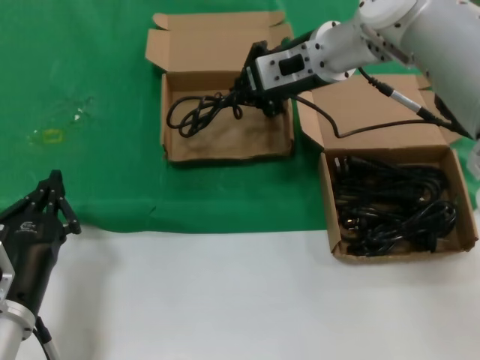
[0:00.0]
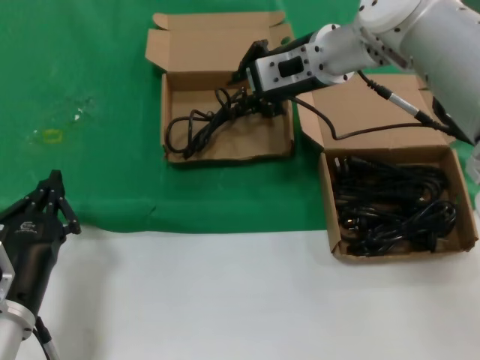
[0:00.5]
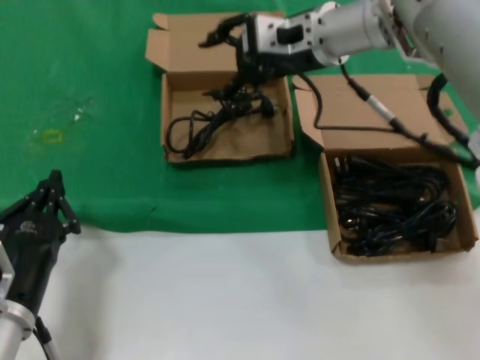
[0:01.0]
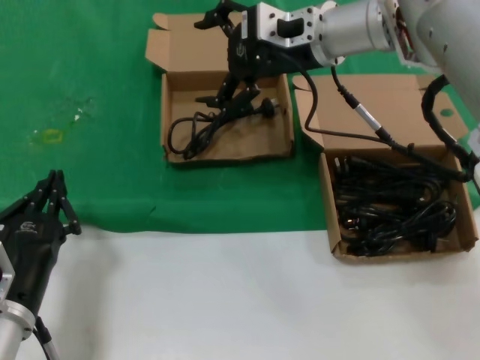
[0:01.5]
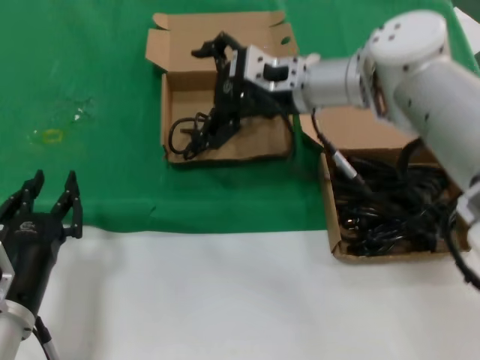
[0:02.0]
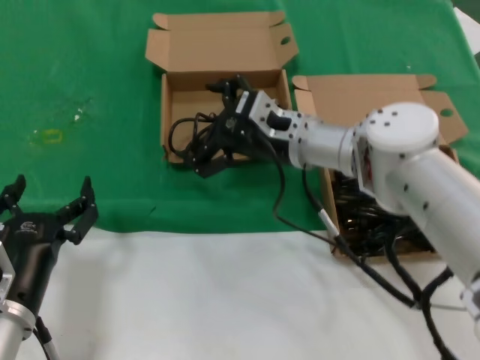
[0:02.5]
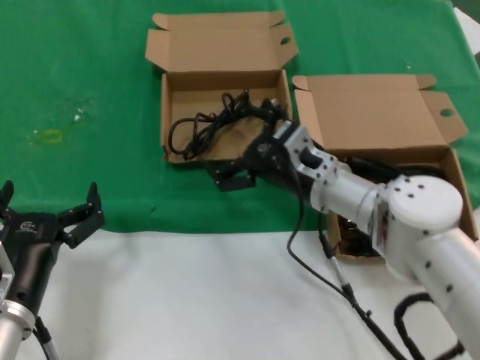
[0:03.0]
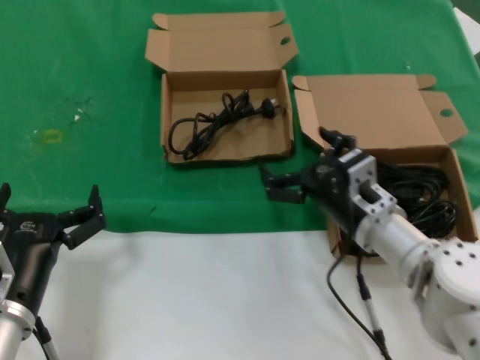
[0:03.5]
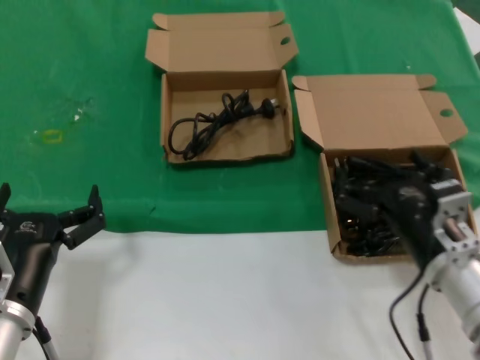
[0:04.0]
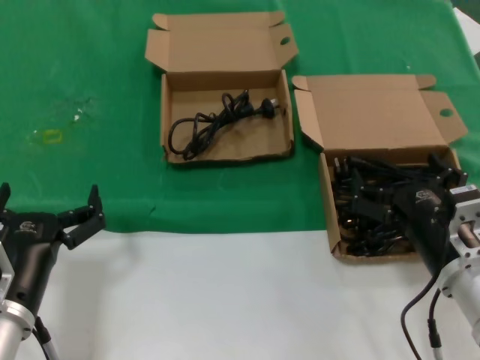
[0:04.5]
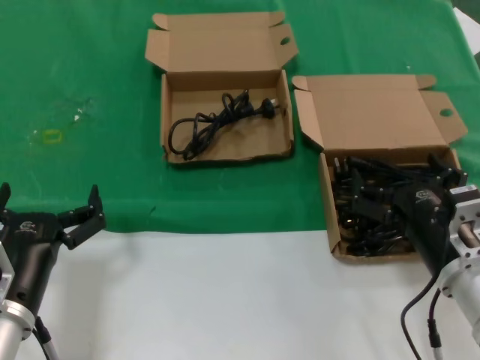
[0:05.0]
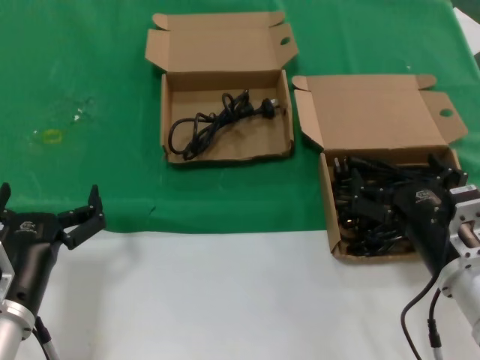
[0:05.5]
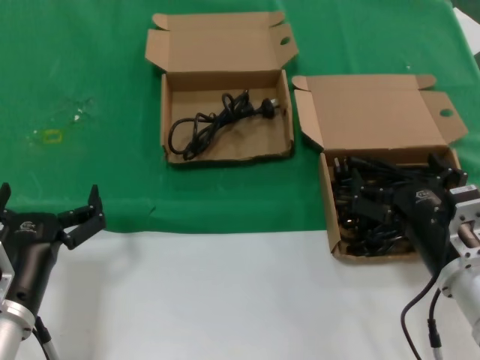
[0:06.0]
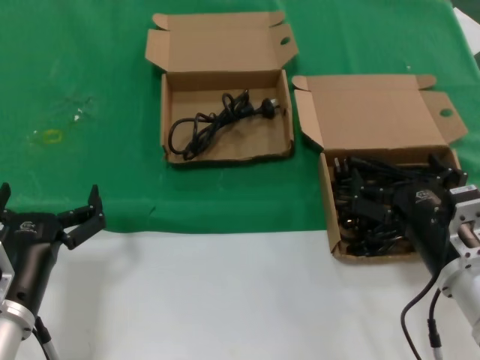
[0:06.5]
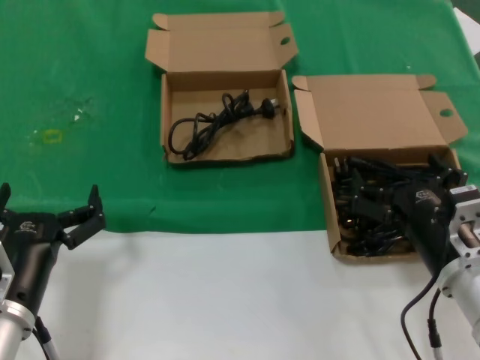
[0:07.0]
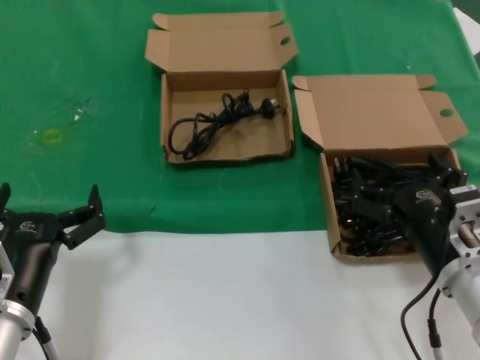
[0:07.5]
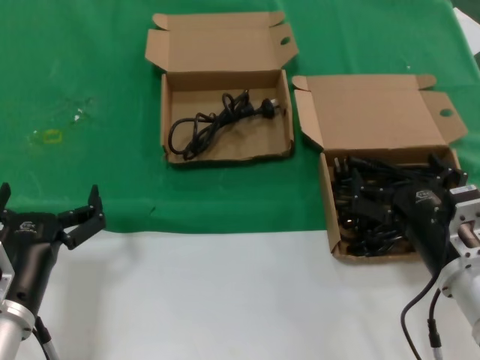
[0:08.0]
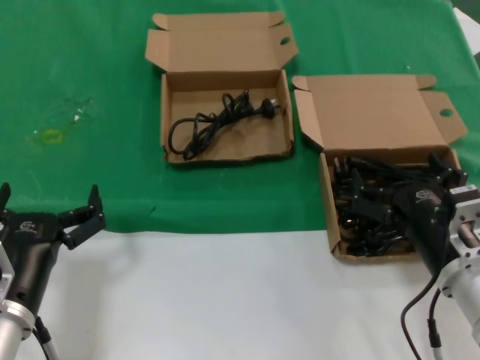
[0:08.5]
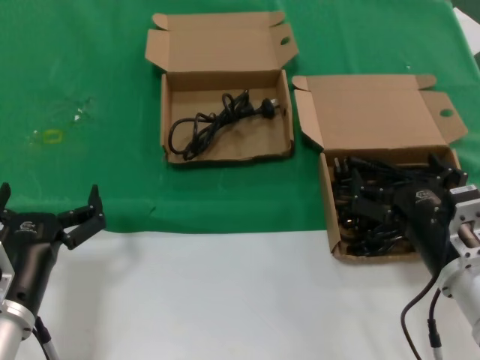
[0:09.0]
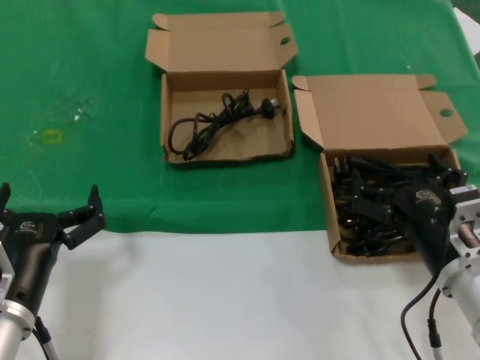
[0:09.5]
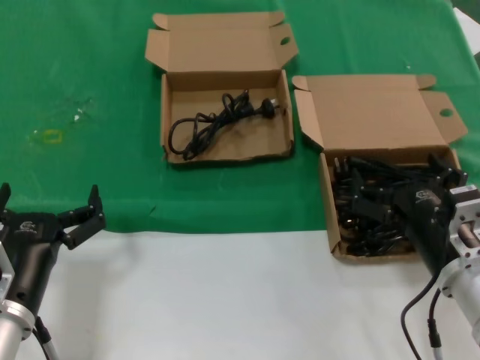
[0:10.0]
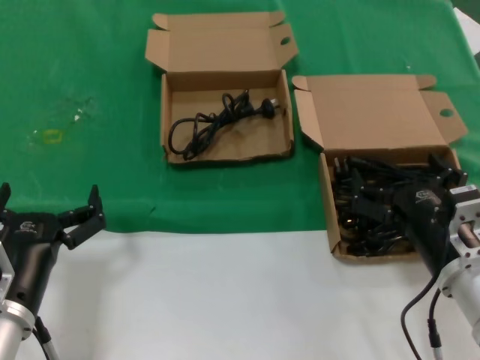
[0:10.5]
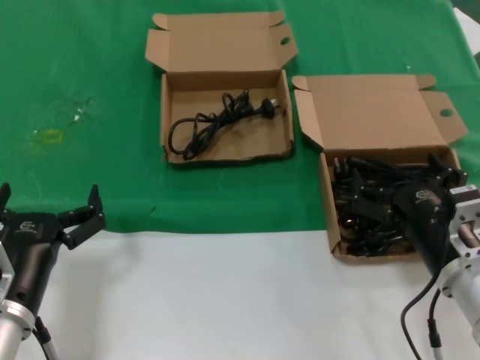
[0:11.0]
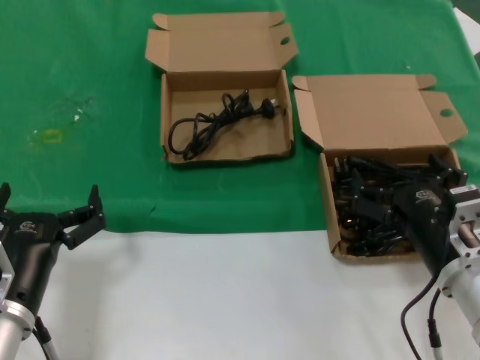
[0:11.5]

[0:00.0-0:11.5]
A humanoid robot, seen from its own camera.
Task of the whole recording: take the parts from the box containing them and put them into an empty box.
0:02.0 to 0:04.0: The right hand is displaced backward, downward and to the right by roughly 30 cm.
0:04.0 to 0:06.0: The hands move only a little.
0:06.0 to 0:11.5: Neither hand changes place.

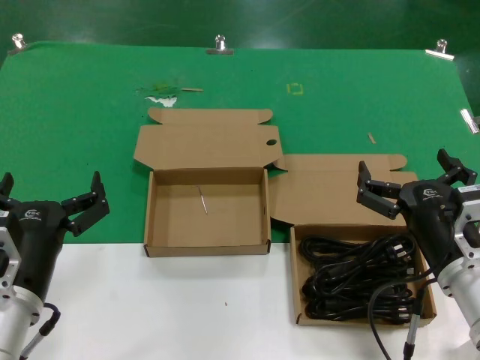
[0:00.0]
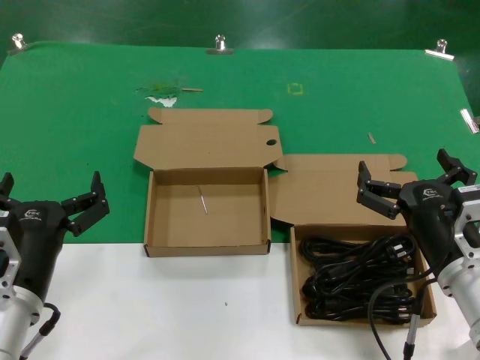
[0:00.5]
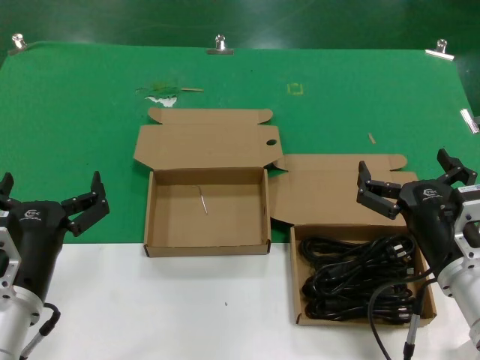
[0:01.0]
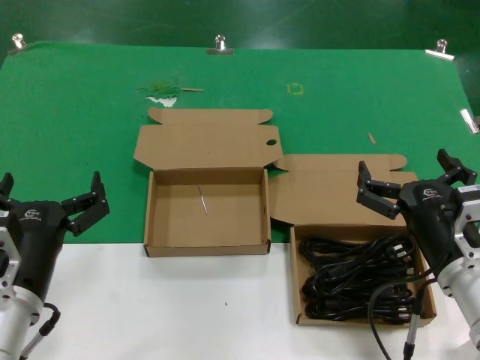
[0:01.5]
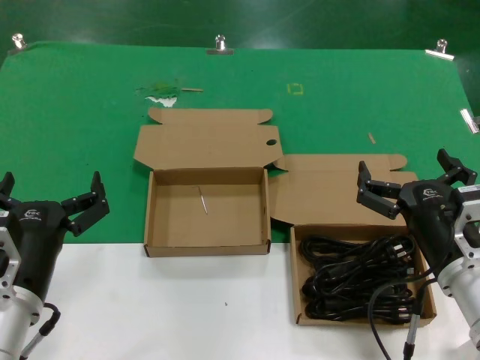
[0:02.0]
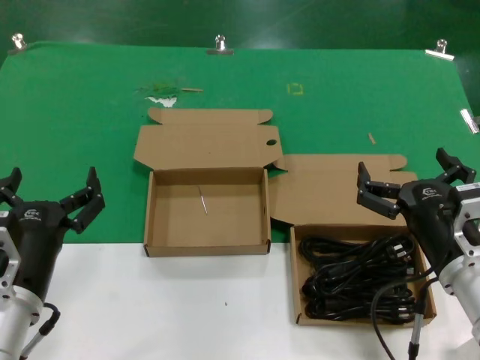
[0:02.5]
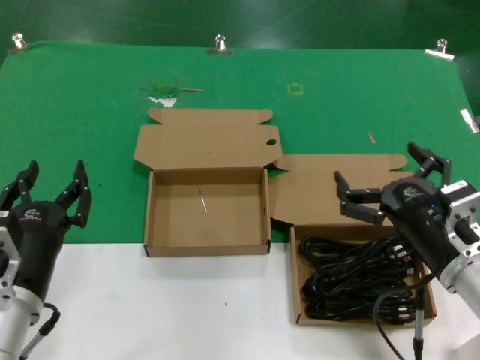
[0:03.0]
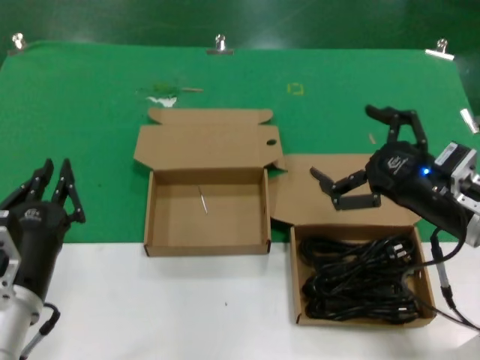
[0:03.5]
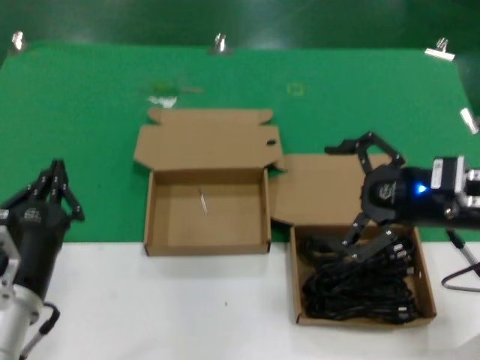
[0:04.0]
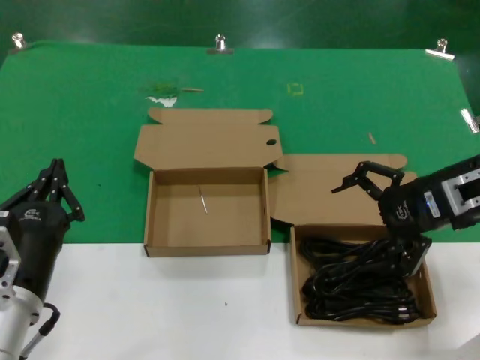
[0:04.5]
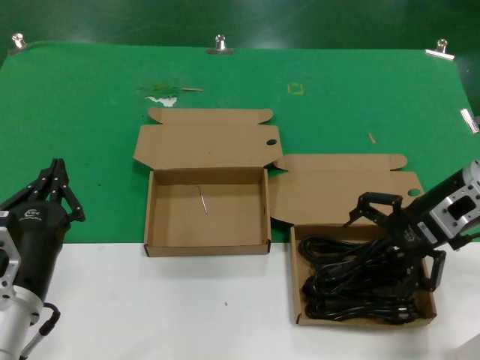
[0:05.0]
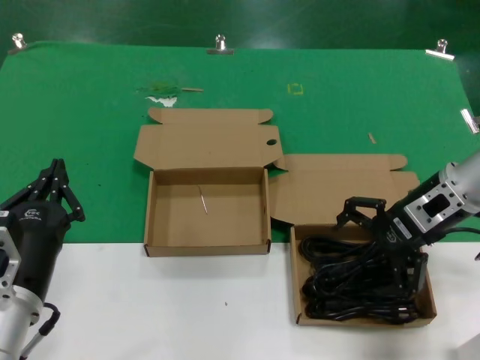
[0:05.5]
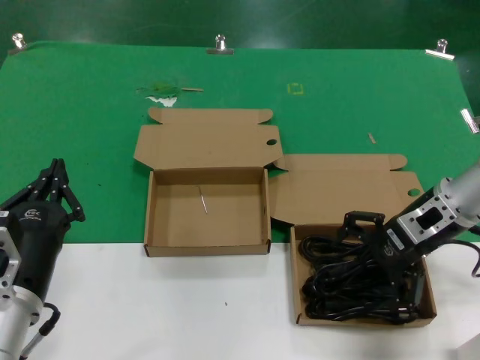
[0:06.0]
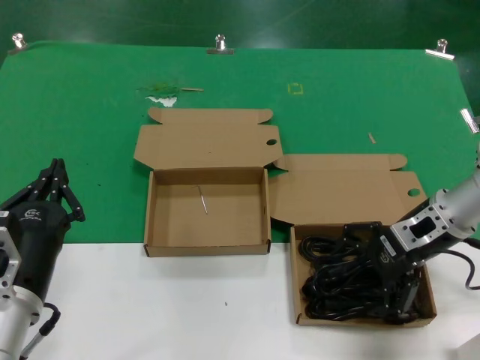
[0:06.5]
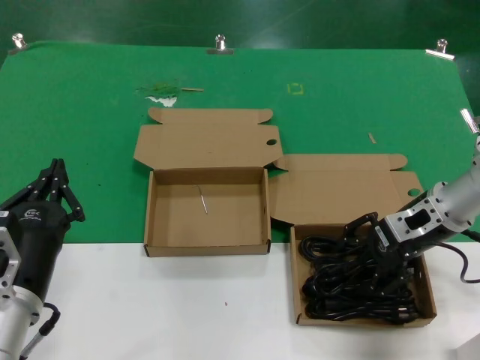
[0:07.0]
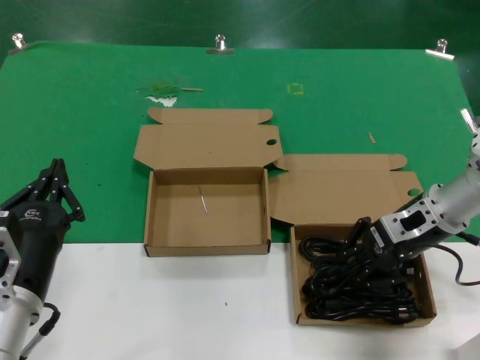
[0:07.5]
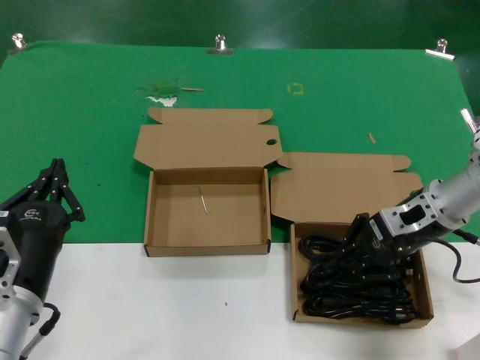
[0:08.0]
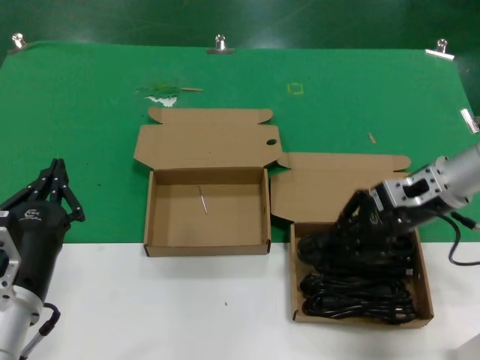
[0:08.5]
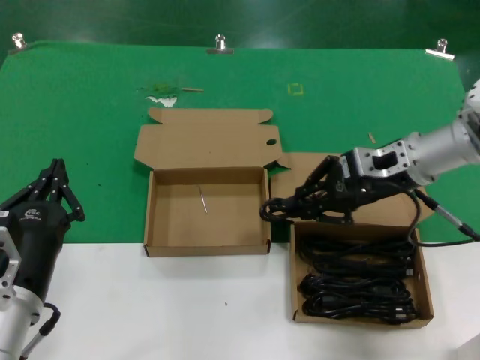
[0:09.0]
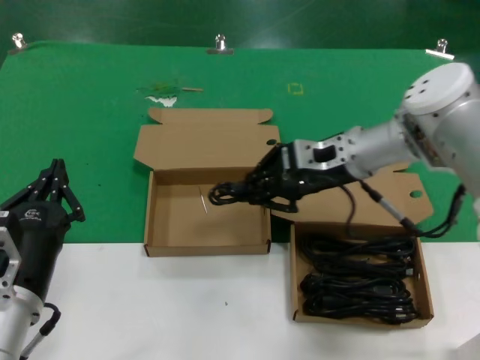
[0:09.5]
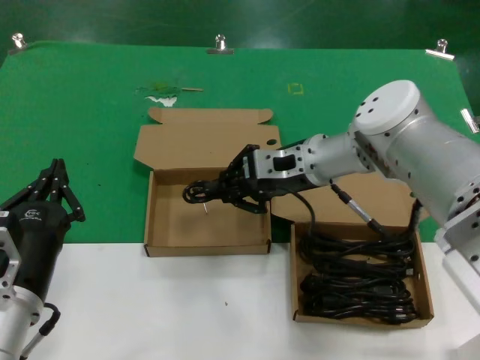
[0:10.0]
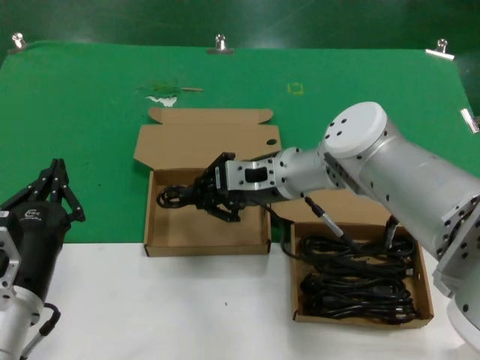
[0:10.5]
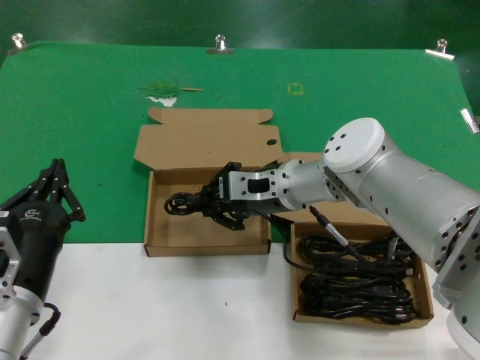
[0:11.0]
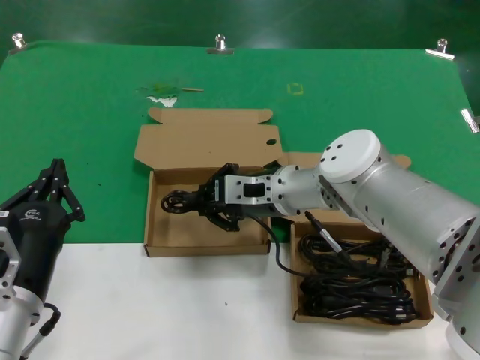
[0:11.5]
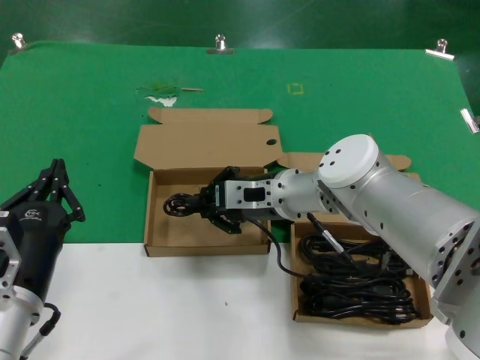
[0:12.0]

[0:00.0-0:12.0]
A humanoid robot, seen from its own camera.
Task of the whole recording: take the parts from the box containing them and put them into an empty box.
Step, 0:00.0 to 0:07.5: Grasp the data cable.
0:00.0 to 0:02.0: Neither hand changes place.
0:02.0 to 0:04.0: The right hand shifts about 15 cm upward, to the right and forward.
0:04.0 to 0:06.0: The right hand goes approximately 10 cm forward.
0:06.0 to 0:08.0: The hands make only small movements.
0:08.0 to 0:10.0: The right hand heads to the left, covering some 15 cm.
0:10.0 to 0:12.0: The right hand moves downward, approximately 5 cm.

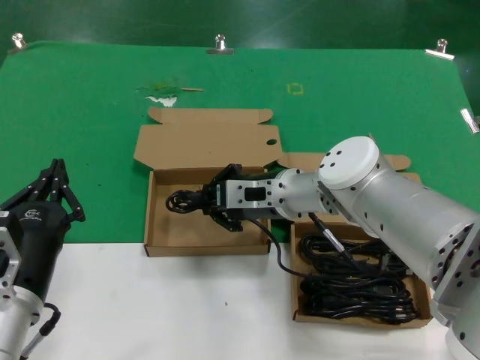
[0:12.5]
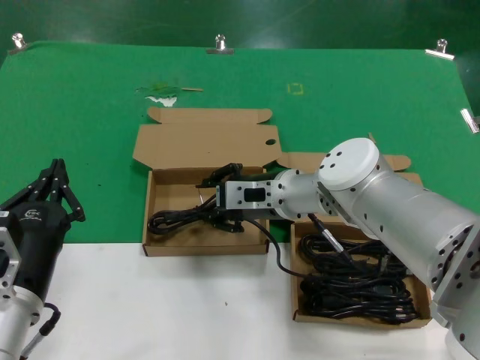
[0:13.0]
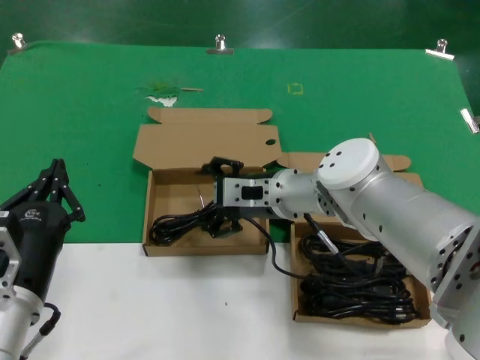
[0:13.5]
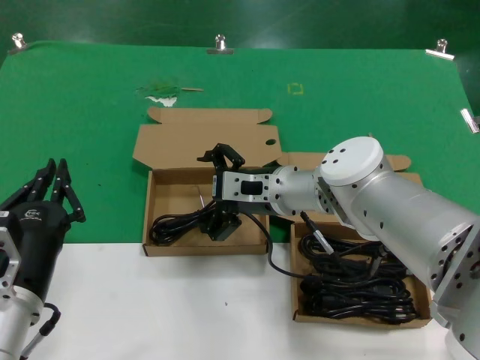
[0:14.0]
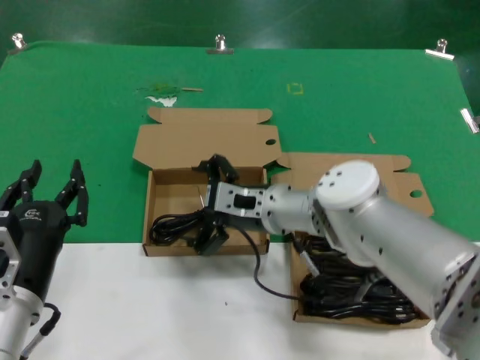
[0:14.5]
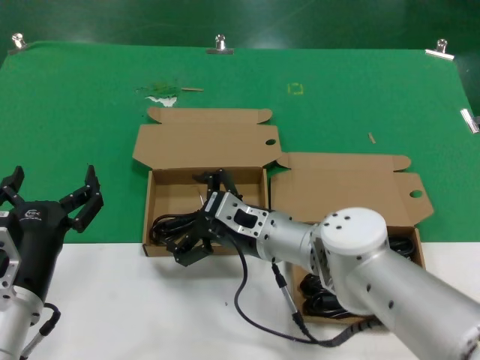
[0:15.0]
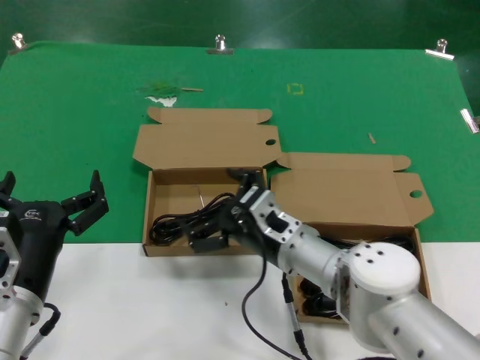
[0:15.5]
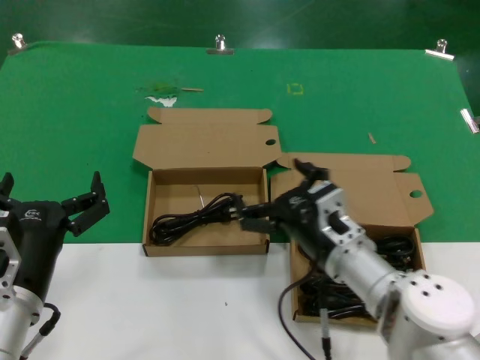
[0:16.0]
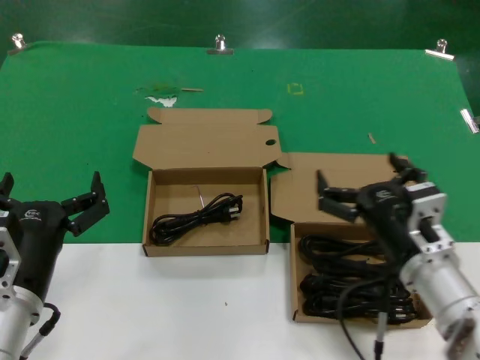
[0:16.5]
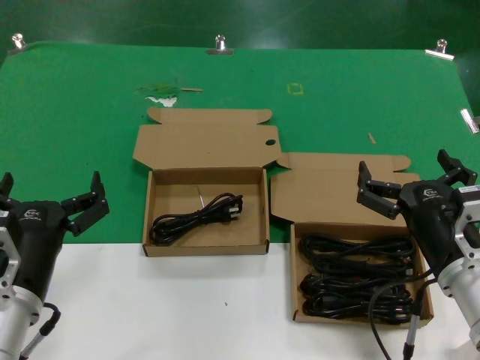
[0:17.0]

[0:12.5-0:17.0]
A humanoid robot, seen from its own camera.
Task of the whole recording: take the parts from the box containing them and put them into an empty box.
0:12.5 to 0:14.5: There are only small adjustments of the hands.
0:14.5 to 0:17.0: The right hand shifts approximately 25 cm backward and to the right.
